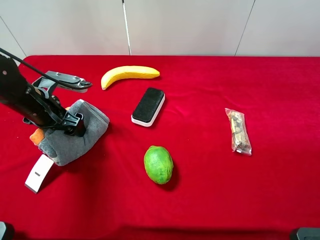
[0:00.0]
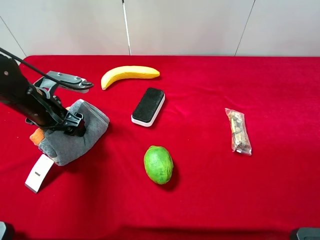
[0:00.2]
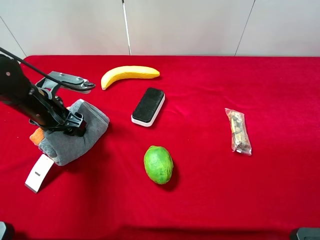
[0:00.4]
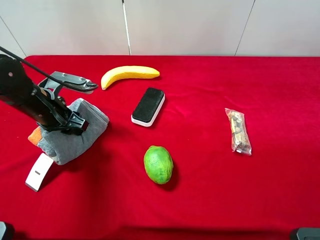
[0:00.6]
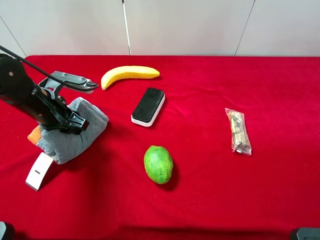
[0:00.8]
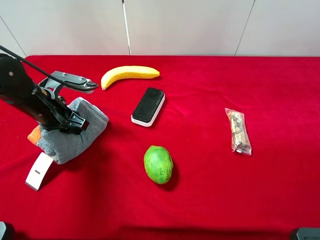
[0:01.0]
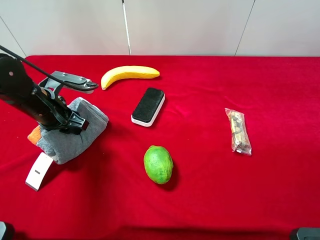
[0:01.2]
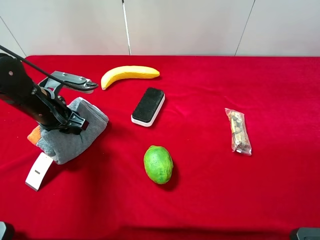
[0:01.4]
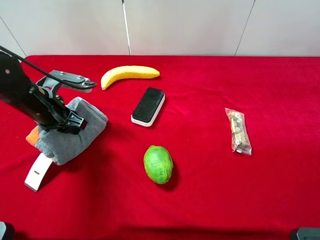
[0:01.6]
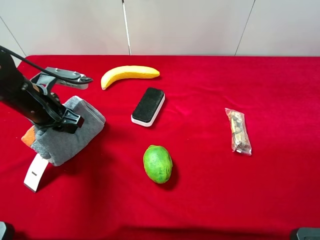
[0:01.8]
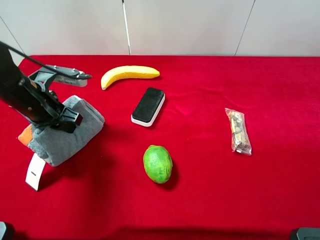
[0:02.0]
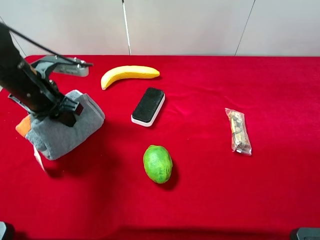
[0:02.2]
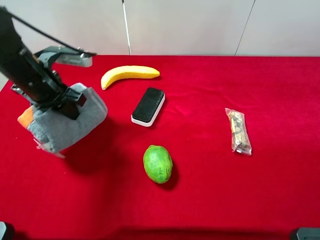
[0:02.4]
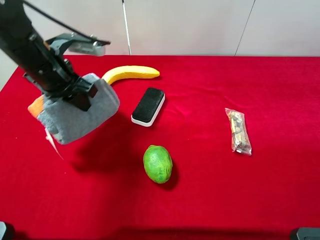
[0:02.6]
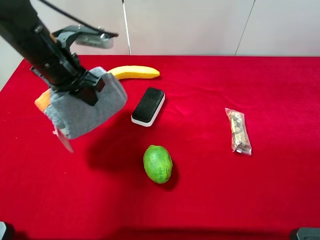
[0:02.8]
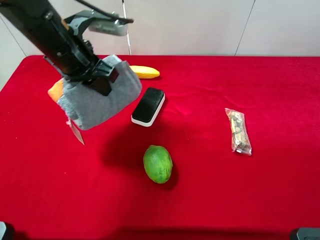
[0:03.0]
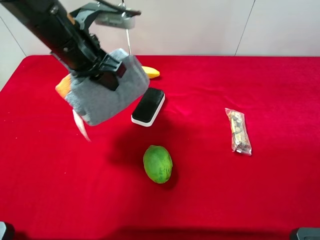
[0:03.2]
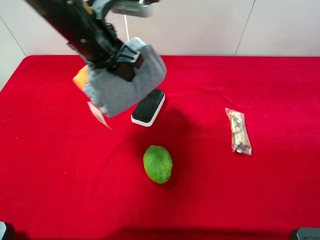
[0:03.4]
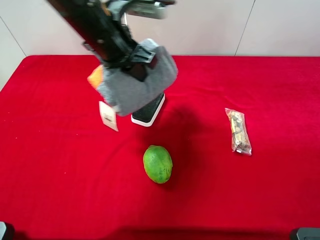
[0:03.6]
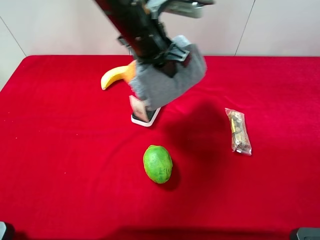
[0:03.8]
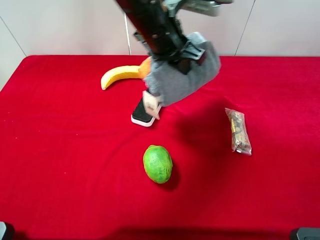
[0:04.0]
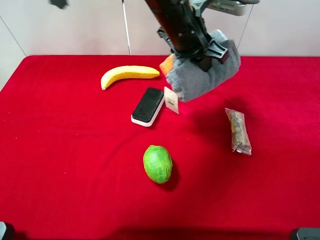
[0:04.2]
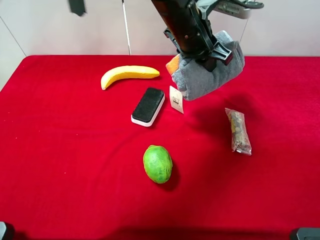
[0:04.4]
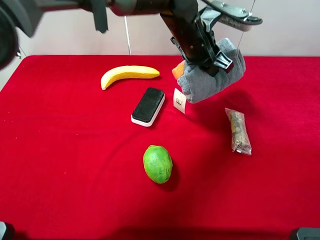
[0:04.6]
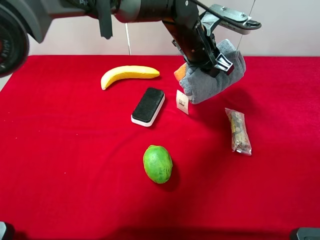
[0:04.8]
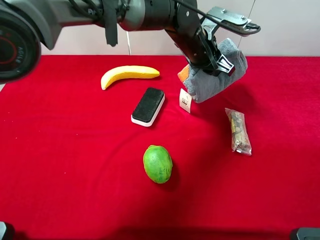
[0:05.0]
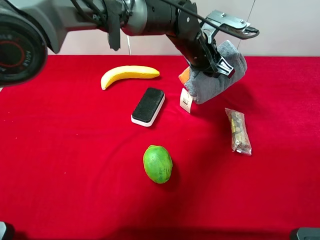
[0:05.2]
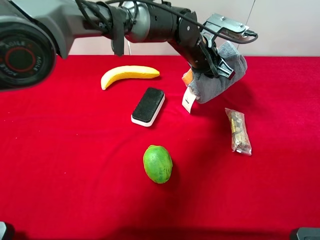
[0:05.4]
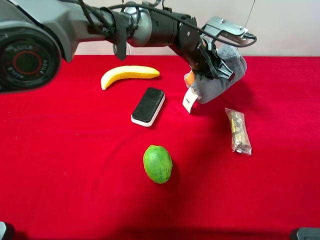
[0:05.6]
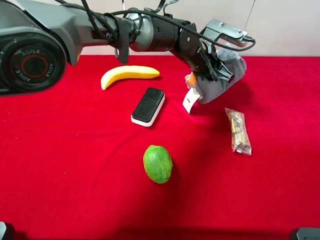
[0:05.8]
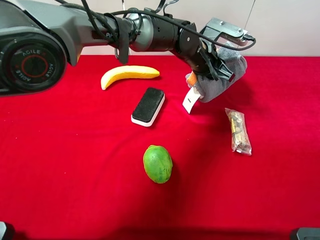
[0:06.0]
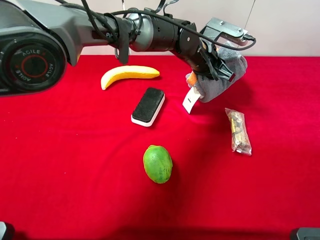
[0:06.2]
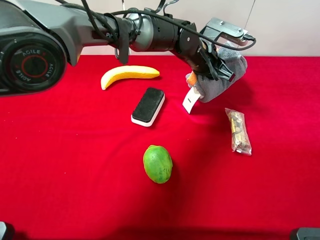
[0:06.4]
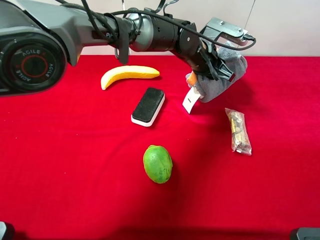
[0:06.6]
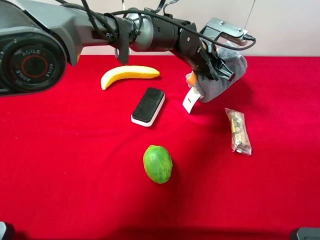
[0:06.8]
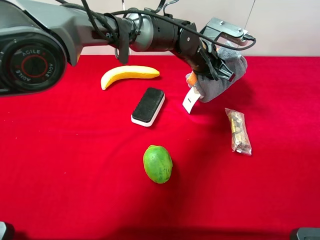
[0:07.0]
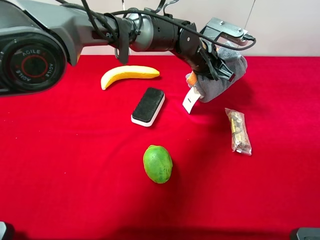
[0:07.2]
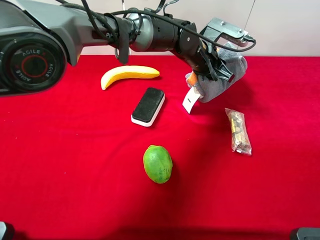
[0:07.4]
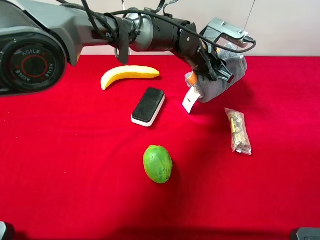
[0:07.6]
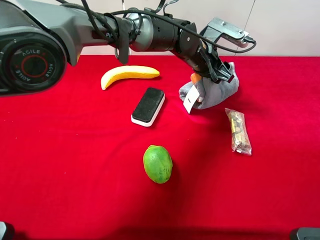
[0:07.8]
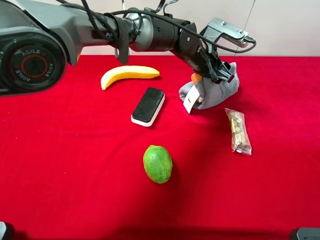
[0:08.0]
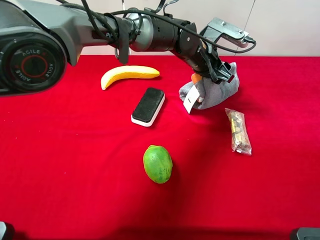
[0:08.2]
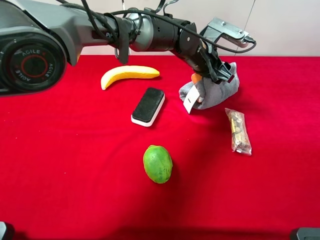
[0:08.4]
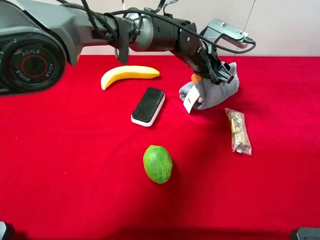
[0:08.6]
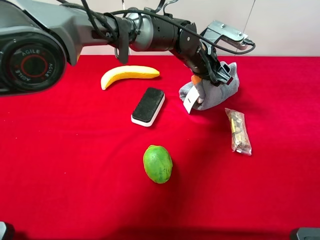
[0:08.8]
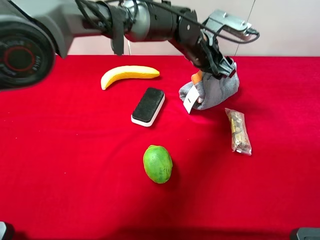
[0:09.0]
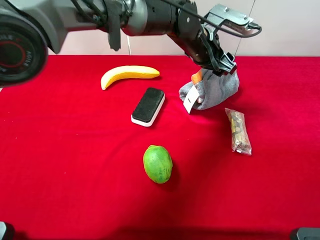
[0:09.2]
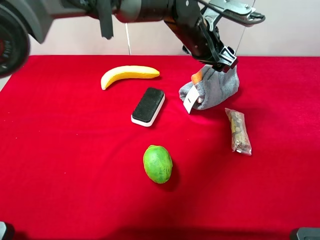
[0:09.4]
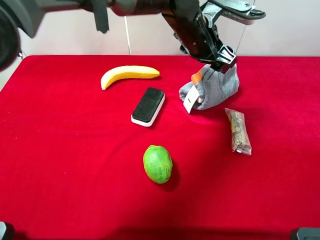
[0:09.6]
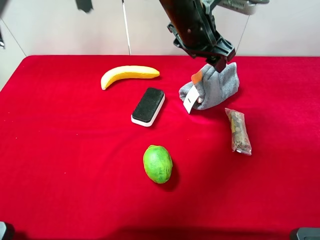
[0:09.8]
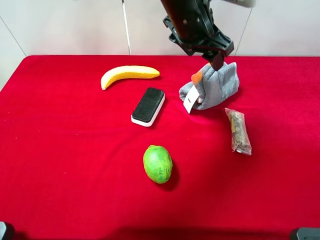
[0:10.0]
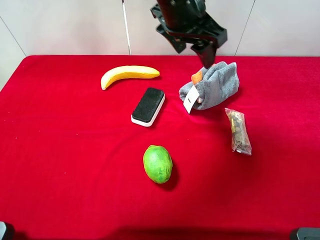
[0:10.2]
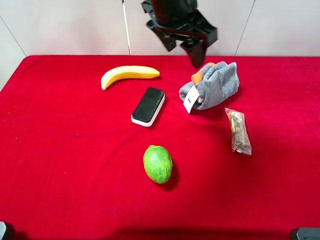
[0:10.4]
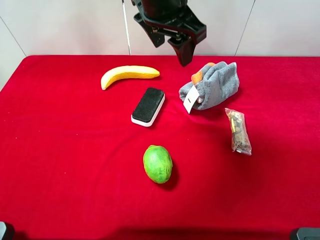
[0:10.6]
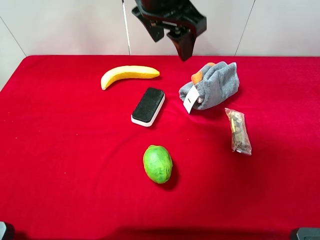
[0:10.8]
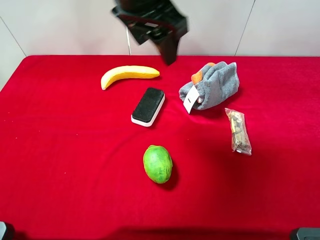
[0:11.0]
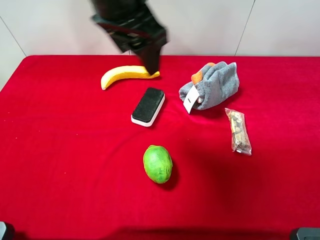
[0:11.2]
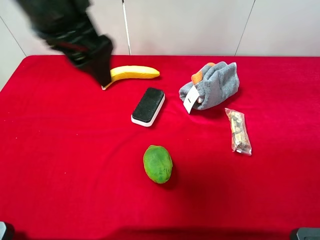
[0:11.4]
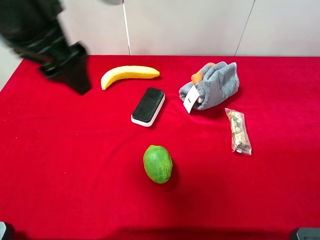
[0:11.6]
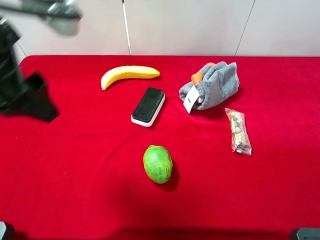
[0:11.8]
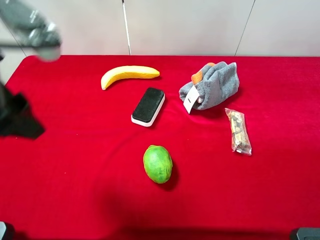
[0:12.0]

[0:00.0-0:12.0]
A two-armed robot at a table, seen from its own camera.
Task of the whole recording: the gripper move the object.
0:00.0 to 0:01.6: The left gripper closes.
0:01.6 to 0:03.0: The left gripper travels upward and to the right by roughly 15 cm.
0:03.0 to 0:04.4: The left gripper moves to the right, approximately 20 cm.
0:04.4 to 0:06.0: The left gripper travels downward by roughly 10 cm.
0:06.0 to 0:07.6: The two grippers keep their place.
0:07.6 to 0:09.0: The left gripper opens its fingers.
0:09.0 to 0:10.4: The left gripper moves upward, backward and to the left, about 15 cm.
0:10.4 to 0:12.0: The left gripper travels to the left and backward by some 25 cm.

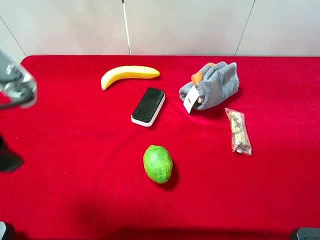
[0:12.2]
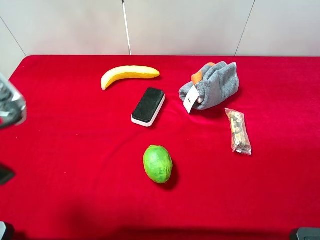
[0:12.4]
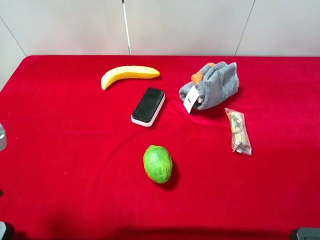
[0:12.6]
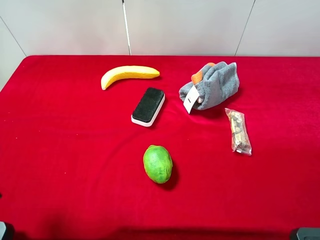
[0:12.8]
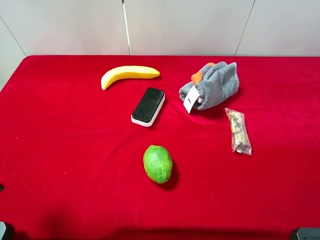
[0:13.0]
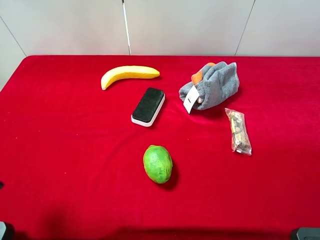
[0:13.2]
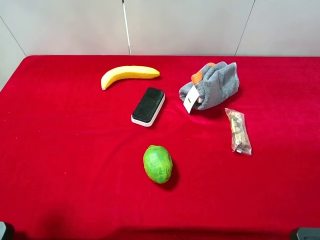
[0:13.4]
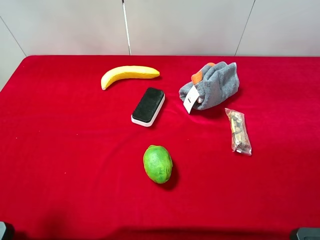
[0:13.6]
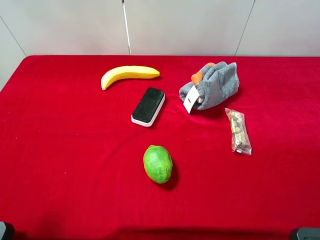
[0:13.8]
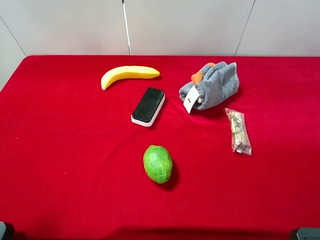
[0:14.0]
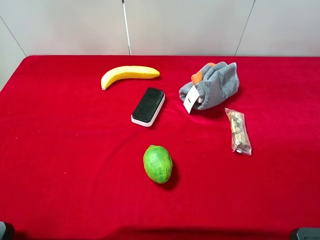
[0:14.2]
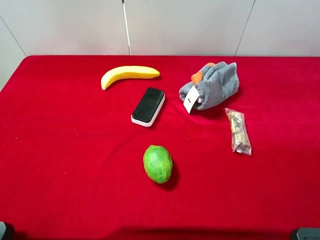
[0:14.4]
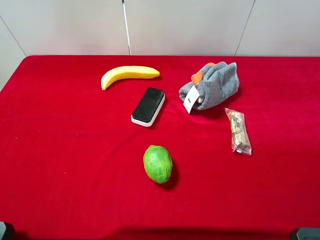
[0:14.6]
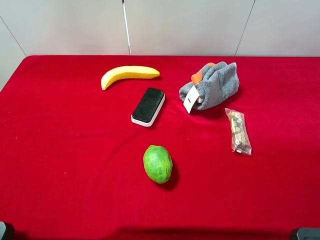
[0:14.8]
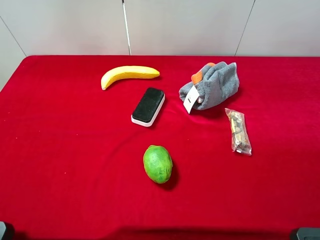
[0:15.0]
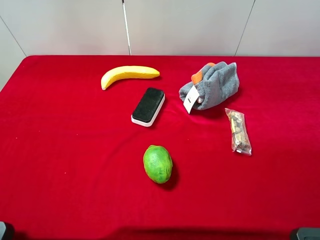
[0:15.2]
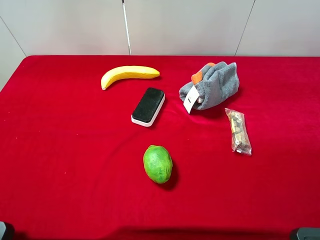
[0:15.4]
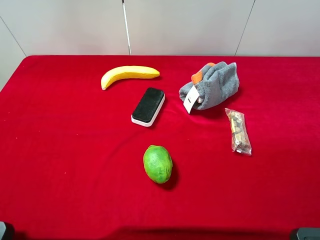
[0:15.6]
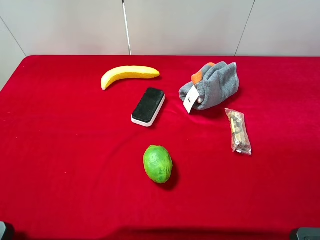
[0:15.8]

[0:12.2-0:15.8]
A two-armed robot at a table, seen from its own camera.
Task of the whole recording: the gripper move the object.
0:12.2 to 0:14.0: The left gripper goes approximately 10 cm to the left and backward.
